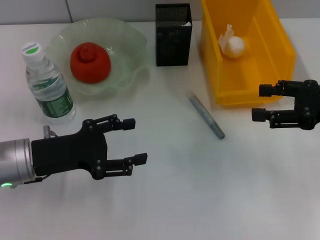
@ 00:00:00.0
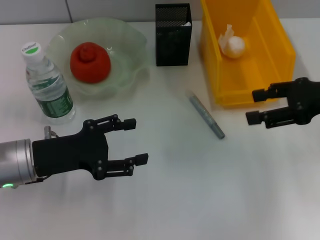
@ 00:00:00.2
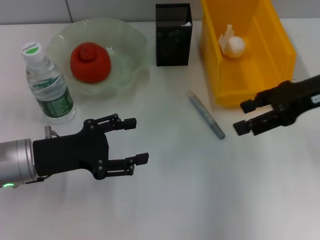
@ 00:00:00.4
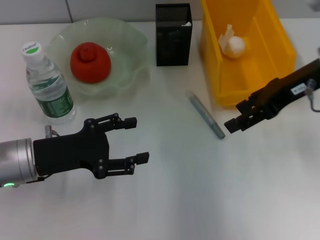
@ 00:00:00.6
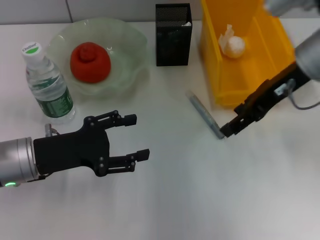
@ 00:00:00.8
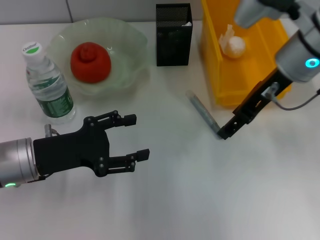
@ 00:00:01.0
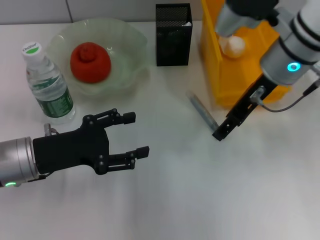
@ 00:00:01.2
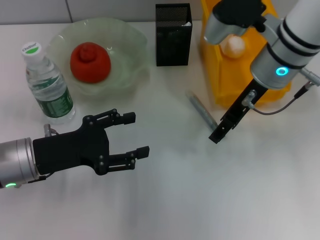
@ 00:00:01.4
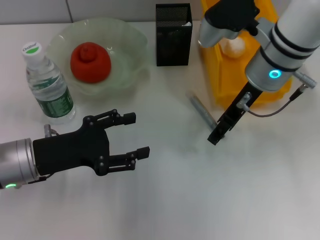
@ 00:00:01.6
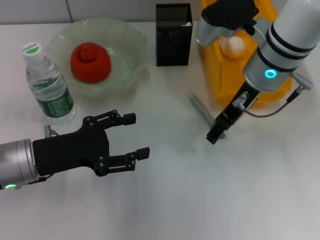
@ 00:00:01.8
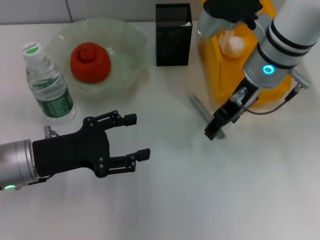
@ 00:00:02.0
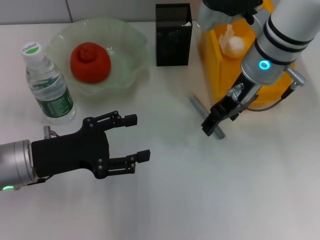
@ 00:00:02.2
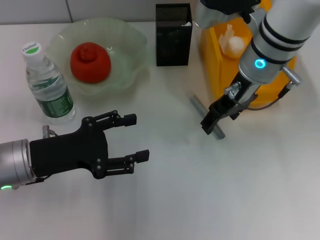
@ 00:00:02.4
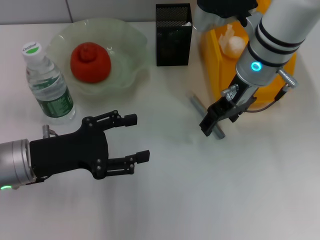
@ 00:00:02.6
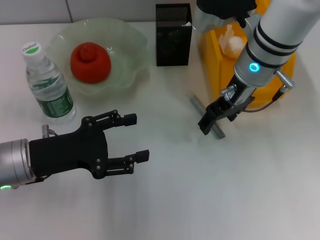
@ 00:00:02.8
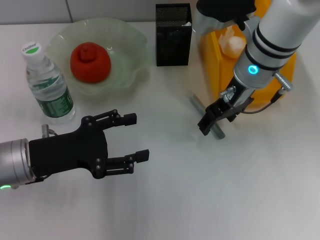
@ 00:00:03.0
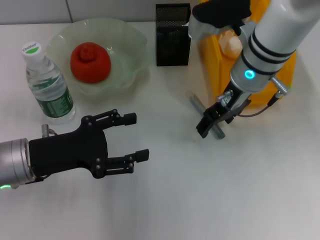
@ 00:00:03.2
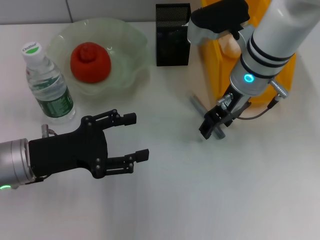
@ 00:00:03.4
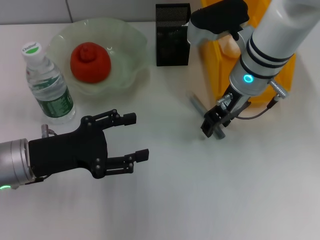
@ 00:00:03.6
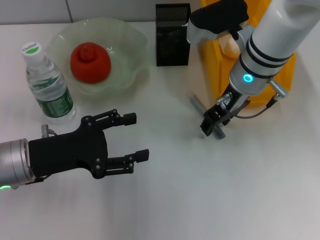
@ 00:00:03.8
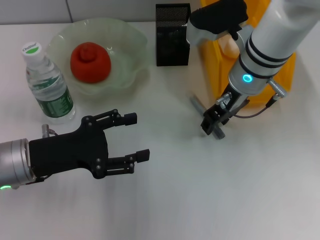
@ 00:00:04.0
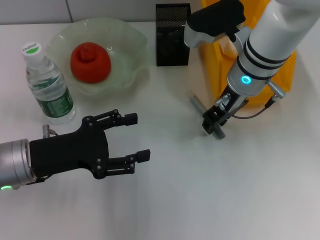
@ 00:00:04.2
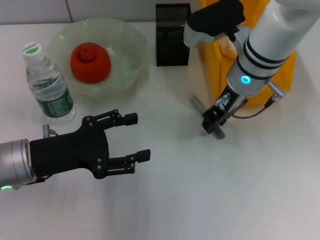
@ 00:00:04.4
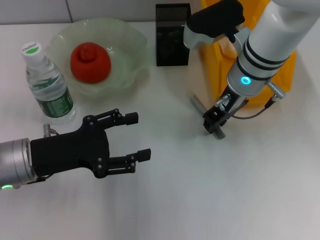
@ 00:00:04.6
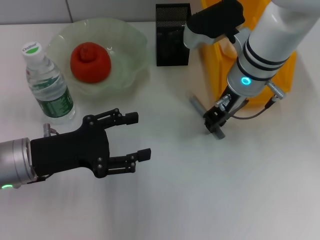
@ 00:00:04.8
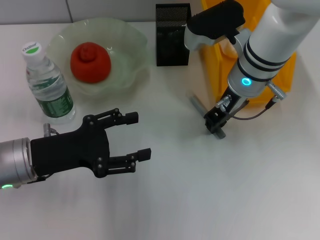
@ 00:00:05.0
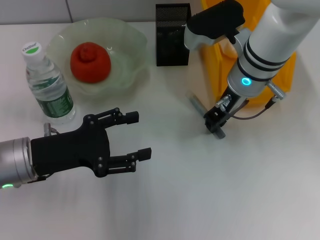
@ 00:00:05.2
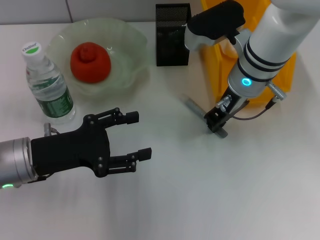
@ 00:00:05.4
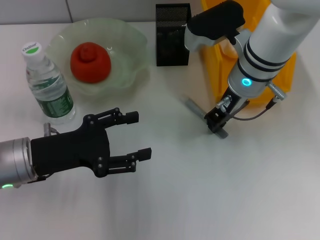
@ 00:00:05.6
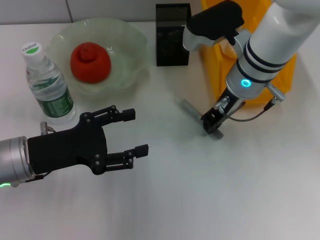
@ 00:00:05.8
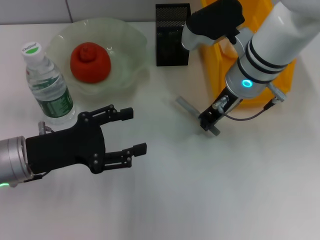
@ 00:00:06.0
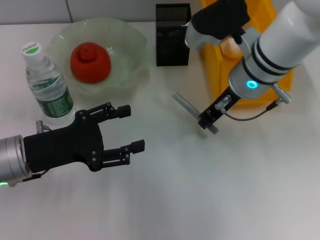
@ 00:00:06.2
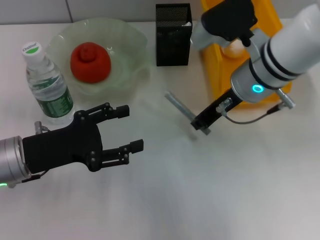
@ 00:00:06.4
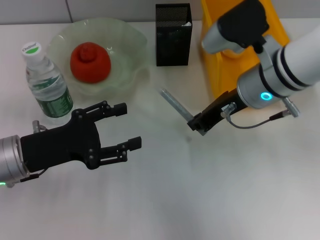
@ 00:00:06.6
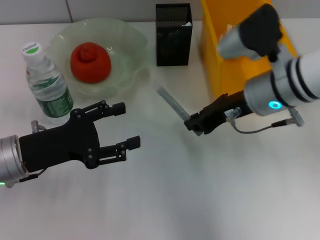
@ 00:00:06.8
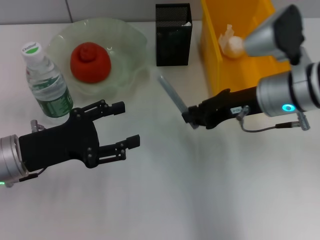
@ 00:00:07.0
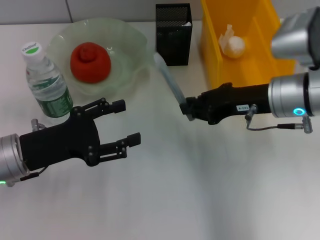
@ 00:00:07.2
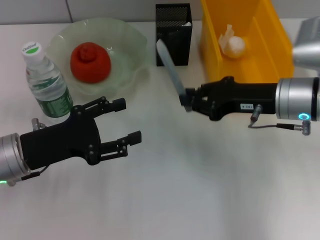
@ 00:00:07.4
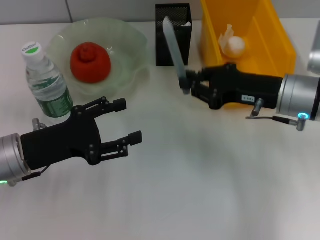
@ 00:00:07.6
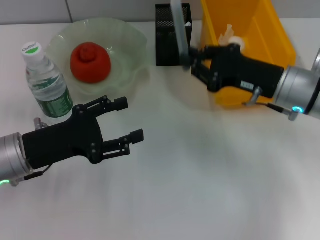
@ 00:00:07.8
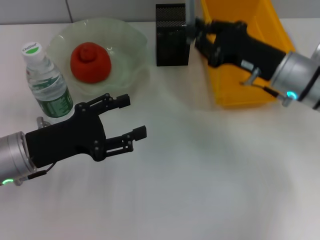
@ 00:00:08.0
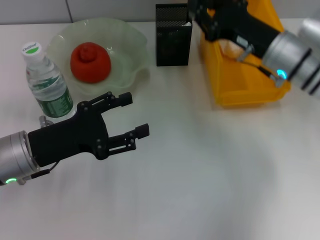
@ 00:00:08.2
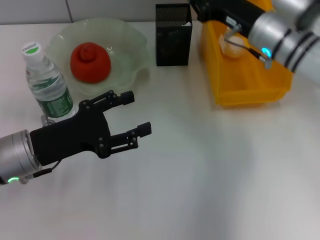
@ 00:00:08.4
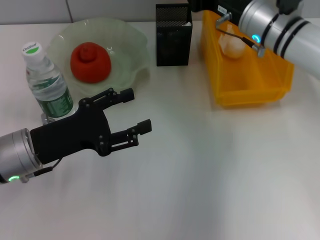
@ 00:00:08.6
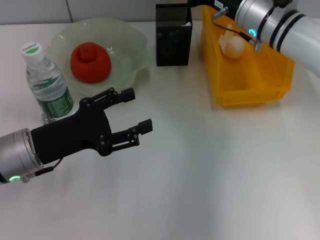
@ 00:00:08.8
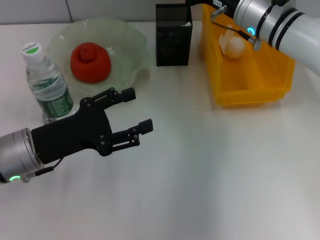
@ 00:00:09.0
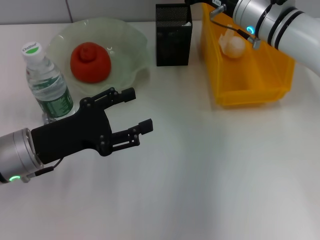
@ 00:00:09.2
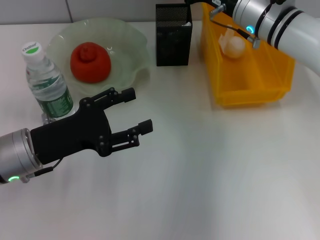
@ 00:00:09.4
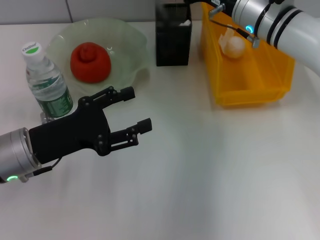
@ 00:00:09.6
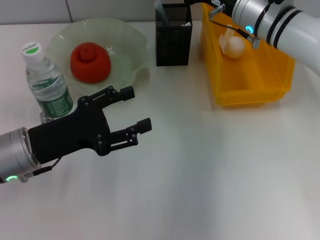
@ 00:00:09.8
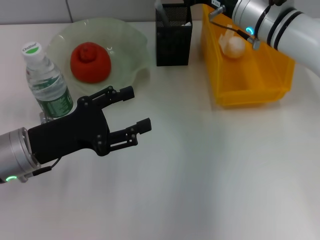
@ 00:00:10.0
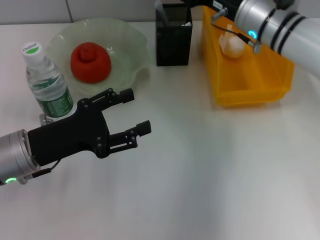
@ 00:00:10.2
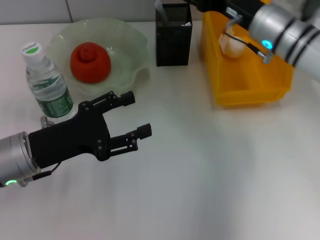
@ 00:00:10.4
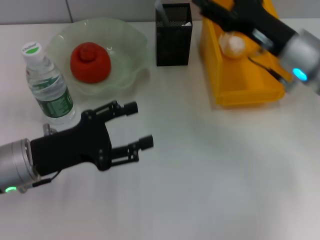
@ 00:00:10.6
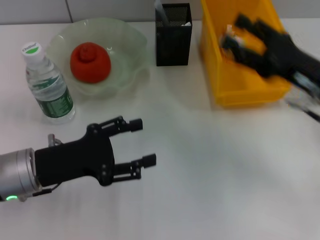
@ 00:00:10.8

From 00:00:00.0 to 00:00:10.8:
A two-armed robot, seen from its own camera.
Step, from 00:00:00.0 to 00:00:05.6: Grab the gray glue with the right hand.
Step, from 00:00:05.8 to 00:00:09.8: Place the gray glue into the pen holder with the right hand.
From 00:00:00.0 to 00:00:01.6: The right gripper goes approximately 20 cm to the left and forward.
From 00:00:01.6 to 00:00:03.0: There are only small adjustments of the grippers.
From 00:00:03.0 to 00:00:04.6: The right gripper closes.
From 00:00:04.6 to 00:00:06.2: The grippers move only a little.
From 00:00:06.2 to 00:00:07.8: The right gripper is displaced to the right by roughly 10 cm.
From 00:00:07.8 to 00:00:09.2: The right gripper travels forward and to the left by some 10 cm.
From 00:00:09.2 to 00:00:10.8: The right gripper heads backward and to the right, covering roughly 15 cm, and opens up.

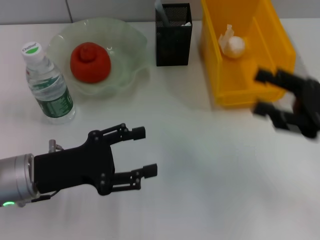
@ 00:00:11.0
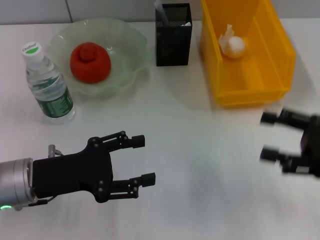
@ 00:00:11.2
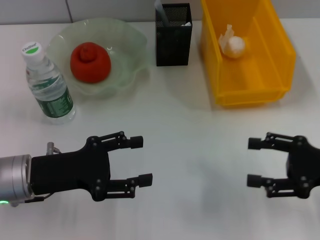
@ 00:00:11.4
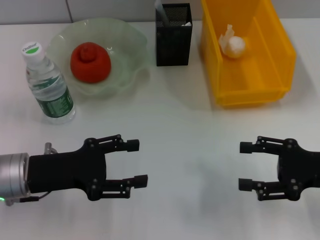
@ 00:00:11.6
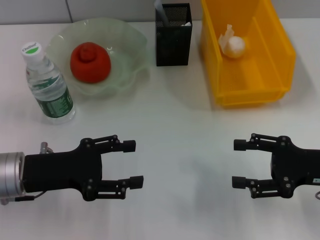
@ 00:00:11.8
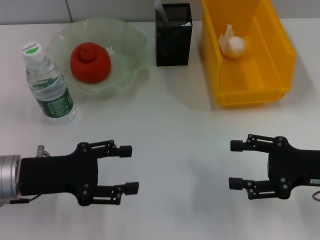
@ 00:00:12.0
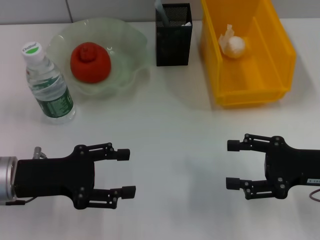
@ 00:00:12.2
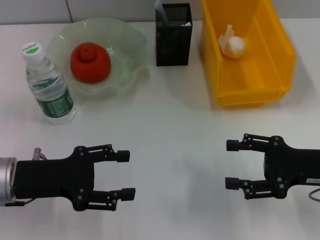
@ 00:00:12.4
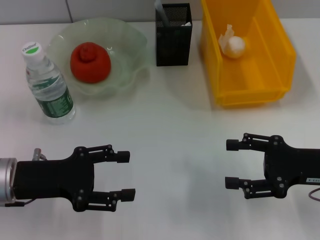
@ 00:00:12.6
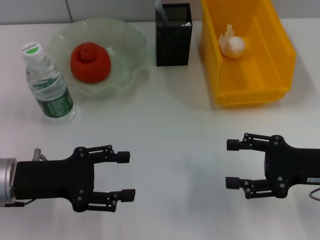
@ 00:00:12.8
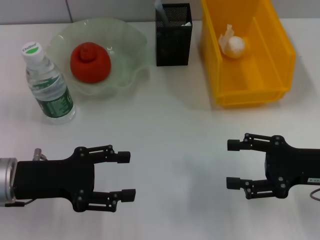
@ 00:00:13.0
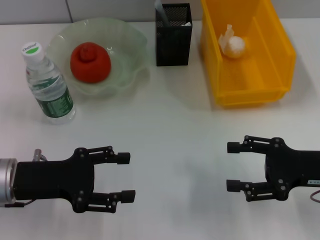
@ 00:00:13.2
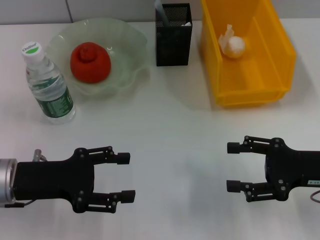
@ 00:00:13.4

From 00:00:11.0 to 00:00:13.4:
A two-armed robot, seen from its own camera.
From 00:00:12.2 to 00:00:13.4: Both grippers stay about where they are.
